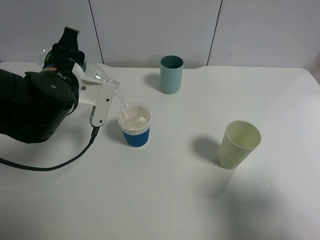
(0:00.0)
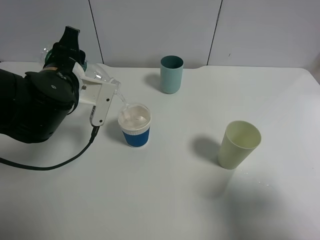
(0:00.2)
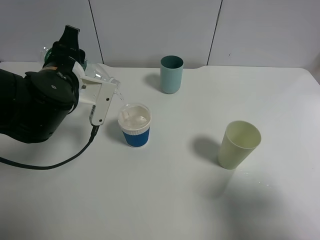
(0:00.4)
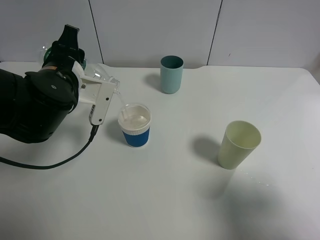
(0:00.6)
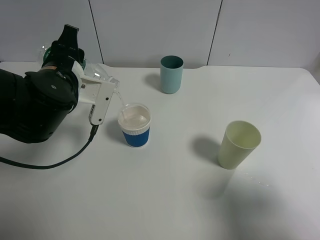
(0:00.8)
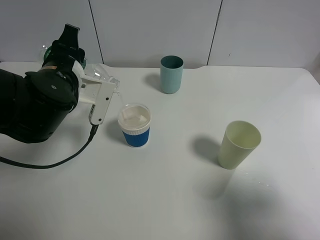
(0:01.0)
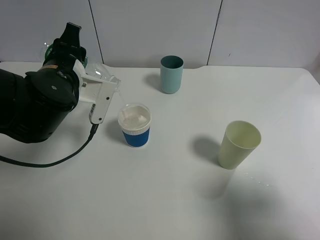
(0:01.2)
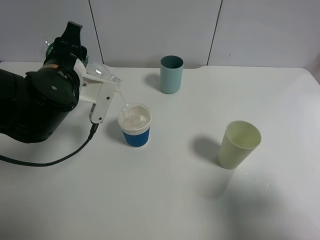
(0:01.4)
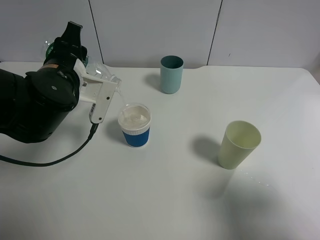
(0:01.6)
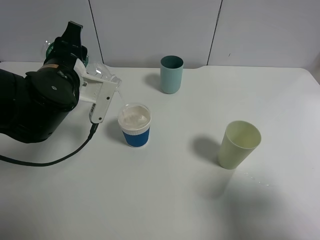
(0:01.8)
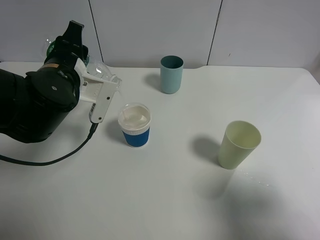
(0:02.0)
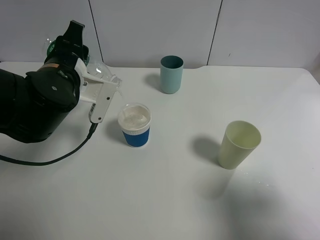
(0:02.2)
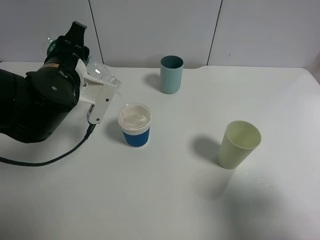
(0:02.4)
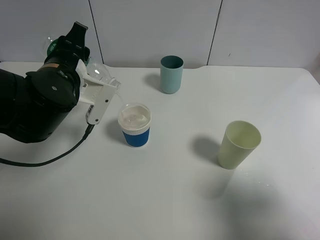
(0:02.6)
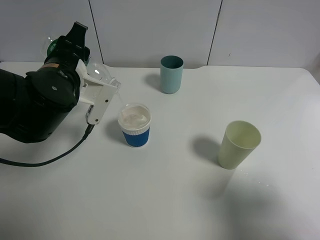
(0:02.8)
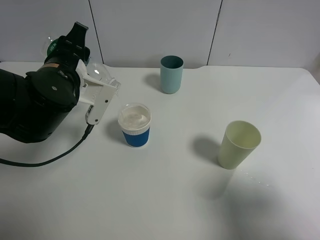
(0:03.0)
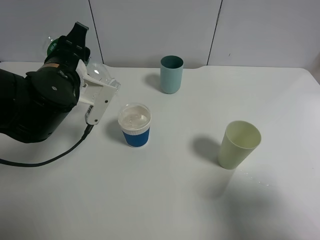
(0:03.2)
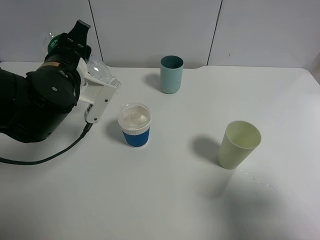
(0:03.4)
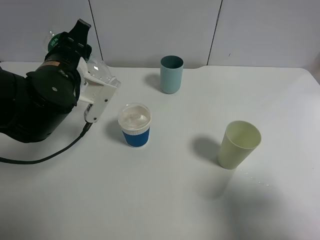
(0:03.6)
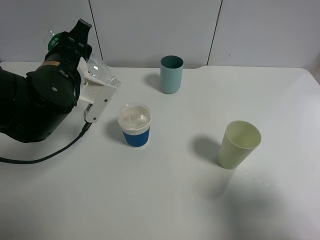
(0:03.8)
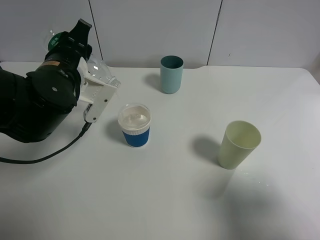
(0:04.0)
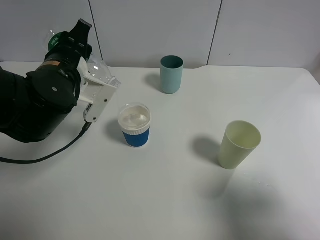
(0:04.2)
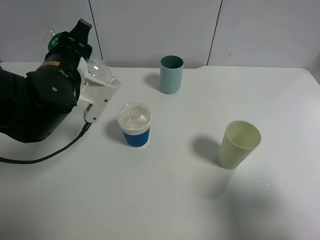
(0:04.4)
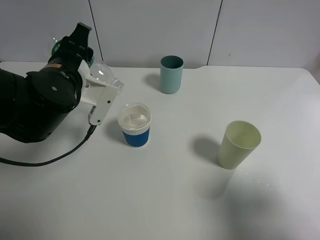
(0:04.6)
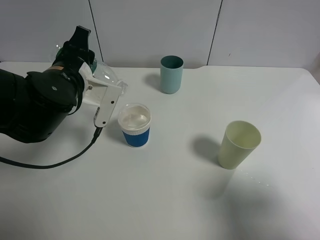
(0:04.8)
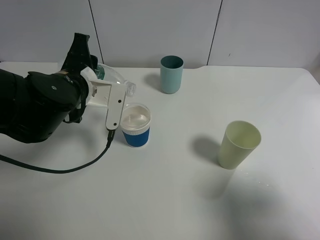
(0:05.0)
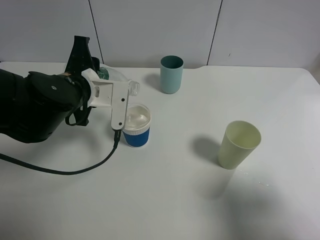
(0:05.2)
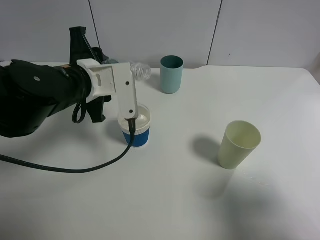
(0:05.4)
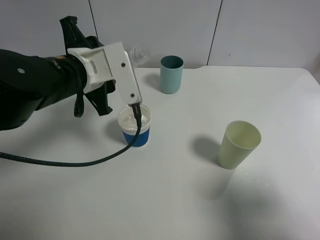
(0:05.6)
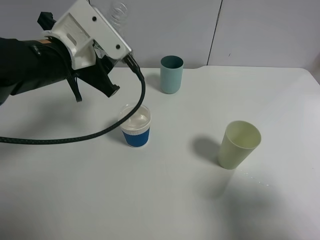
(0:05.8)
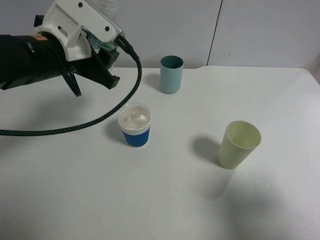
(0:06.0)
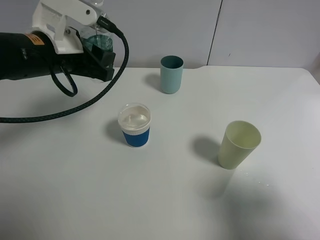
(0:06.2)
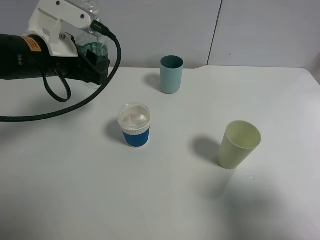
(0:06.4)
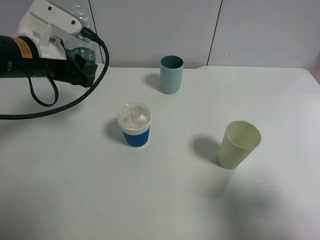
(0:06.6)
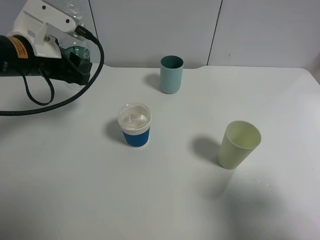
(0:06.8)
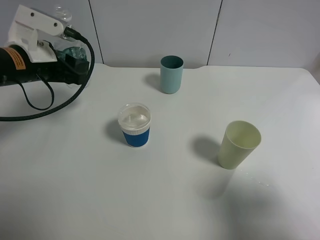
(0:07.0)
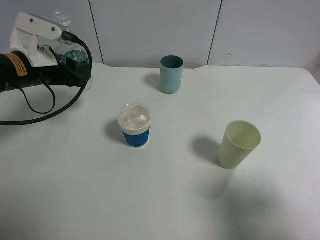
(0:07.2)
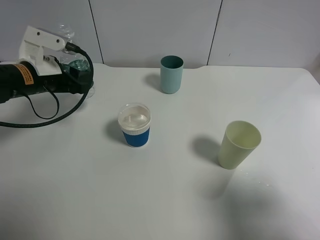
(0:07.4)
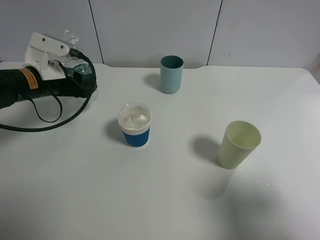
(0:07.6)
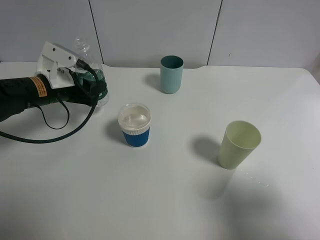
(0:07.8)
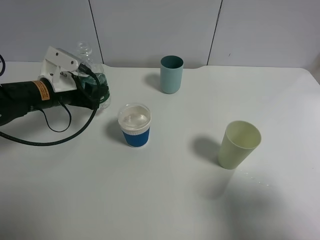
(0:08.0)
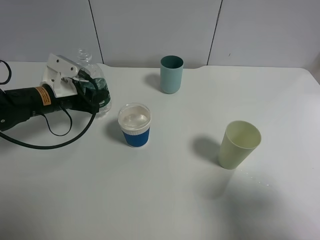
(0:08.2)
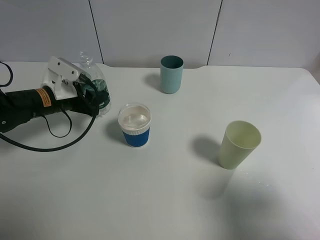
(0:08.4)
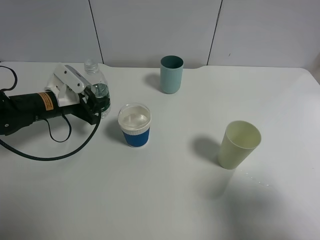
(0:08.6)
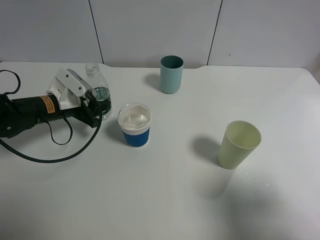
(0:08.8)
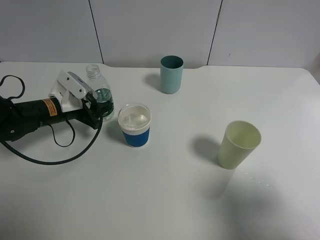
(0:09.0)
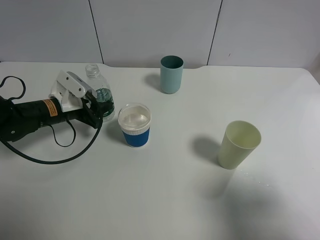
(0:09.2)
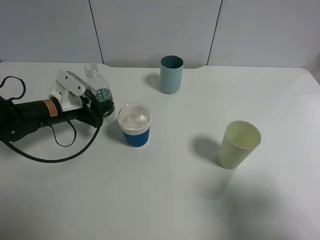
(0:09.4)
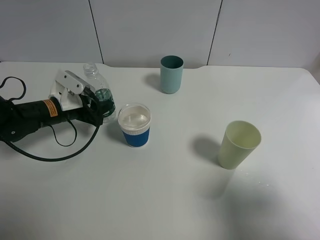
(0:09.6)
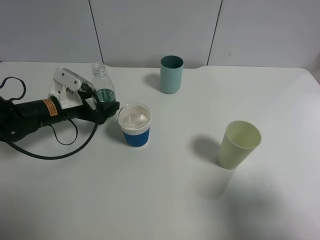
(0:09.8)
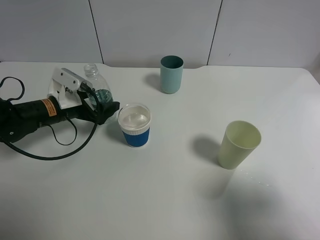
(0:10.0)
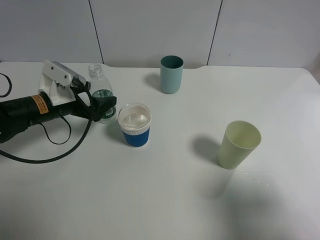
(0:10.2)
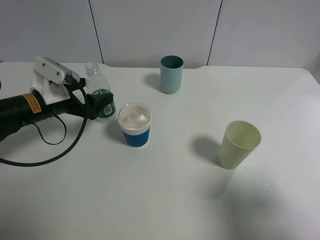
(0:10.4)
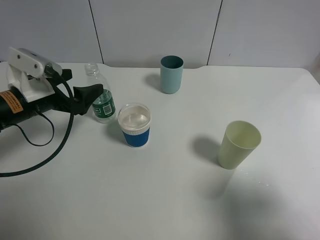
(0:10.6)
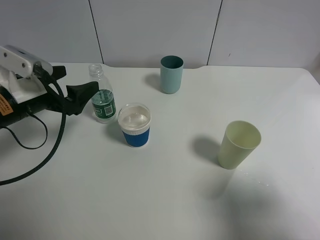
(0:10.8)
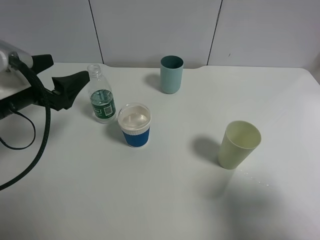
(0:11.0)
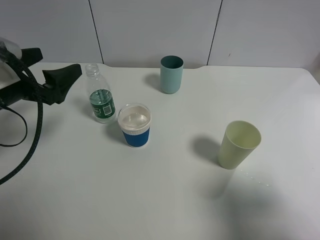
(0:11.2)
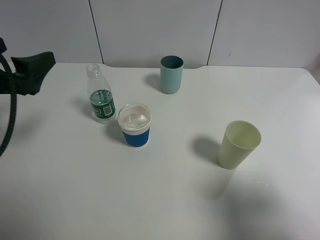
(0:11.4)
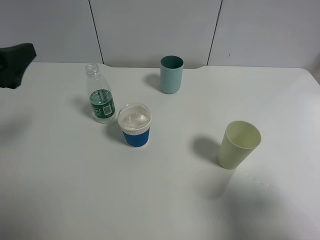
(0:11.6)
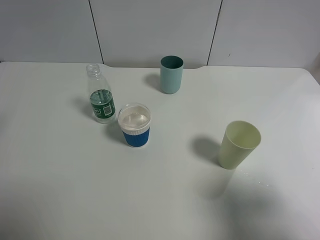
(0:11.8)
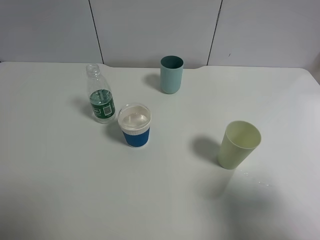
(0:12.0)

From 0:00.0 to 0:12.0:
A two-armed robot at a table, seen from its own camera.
Task of the whole recording: use a gripper to hold the bottle of the drink and pour it into a random cup.
Step, from 0:00.0 to 0:05.2: Pour the mineral water into the paper cup with the left gripper.
Step, from 0:05.4 to 0:10.6: Place the mineral water bottle on the table with the left gripper.
From 0:00.0 to 0:01.6: Neither gripper changes place.
From 0:01.6 to 0:03.0: There are only small adjustments of the grippers.
From 0:03.0 to 0:04.4: Both grippers stay put.
From 0:06.0 to 0:07.6: The left gripper shifts about 10 cm downward and to the left.
From 0:07.6 to 0:09.0: The left gripper travels downward by approximately 5 cm.
From 0:09.0 to 0:10.4: The left gripper changes place by roughly 5 cm, and opens up.
From 0:10.4 to 0:12.0: The left gripper goes about 25 cm upward, backward and to the left.

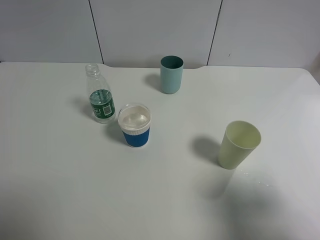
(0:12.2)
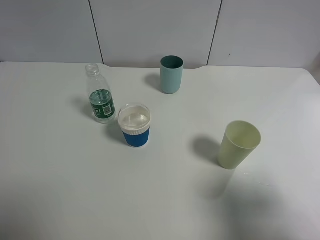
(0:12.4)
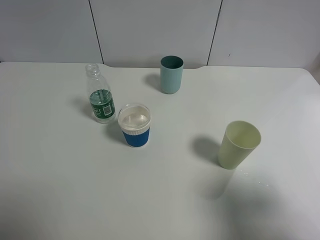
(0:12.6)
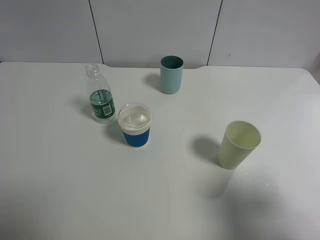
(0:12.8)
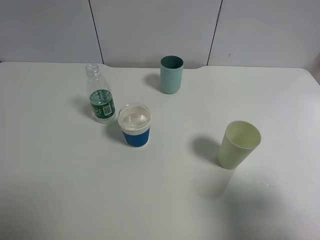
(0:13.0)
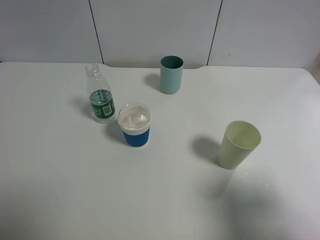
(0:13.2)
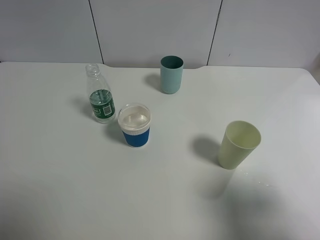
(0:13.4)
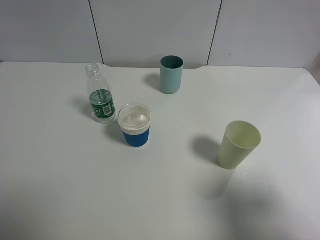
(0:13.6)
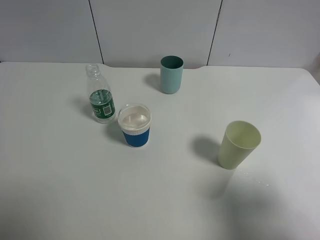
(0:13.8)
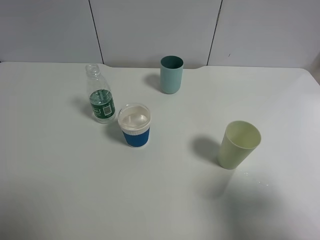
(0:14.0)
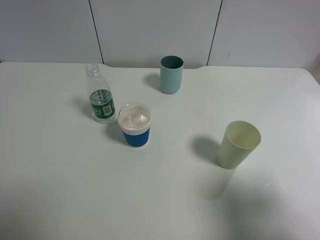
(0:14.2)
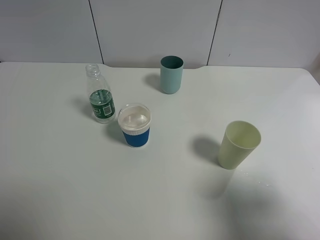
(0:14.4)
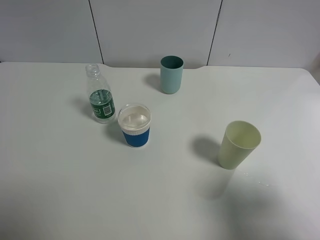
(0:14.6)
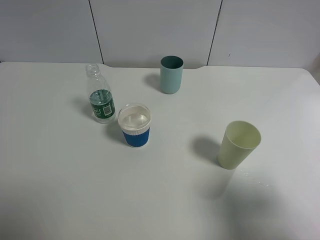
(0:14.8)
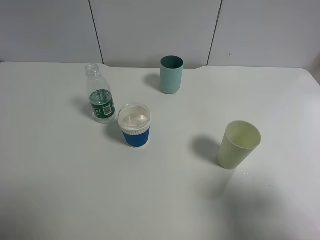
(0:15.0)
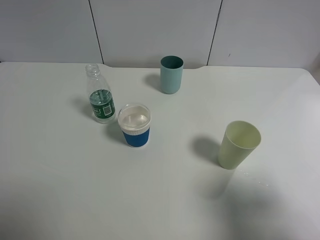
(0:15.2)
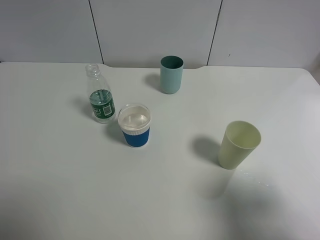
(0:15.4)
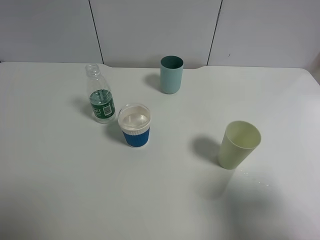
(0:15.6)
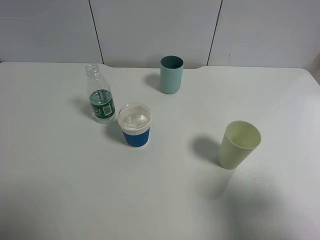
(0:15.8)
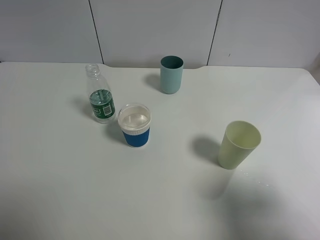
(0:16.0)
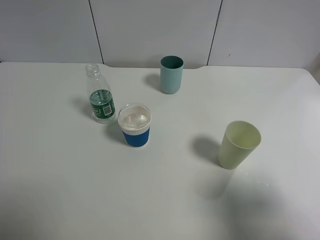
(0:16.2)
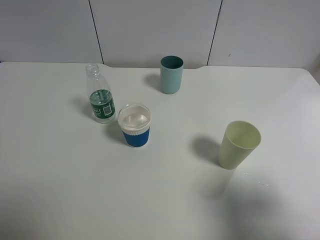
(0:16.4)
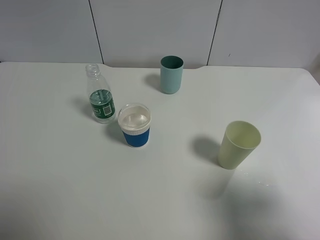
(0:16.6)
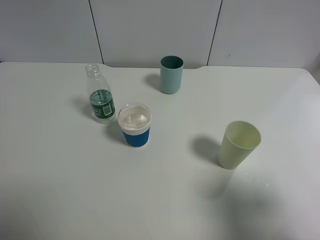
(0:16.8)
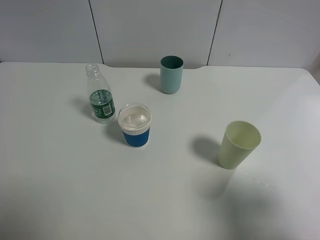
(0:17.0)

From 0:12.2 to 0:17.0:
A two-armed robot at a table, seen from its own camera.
Task of the whole recording: use a gripper to hold the bottle of the drink and pour it into a random cup.
From 0:15.4 to 0:17.0: Both grippers stay put.
